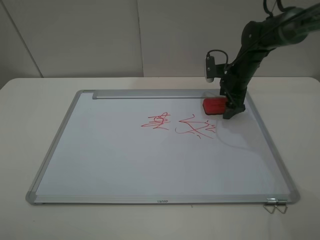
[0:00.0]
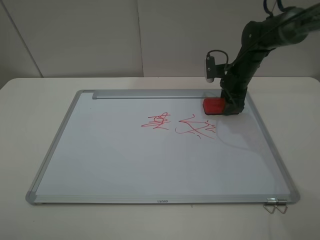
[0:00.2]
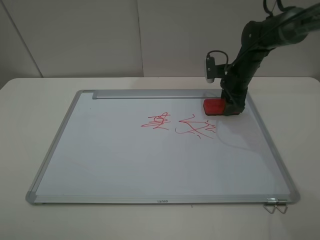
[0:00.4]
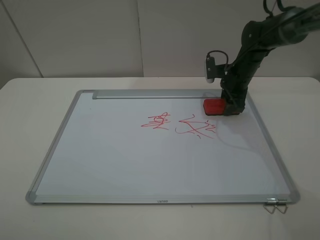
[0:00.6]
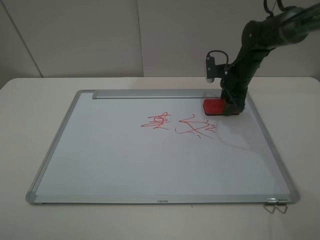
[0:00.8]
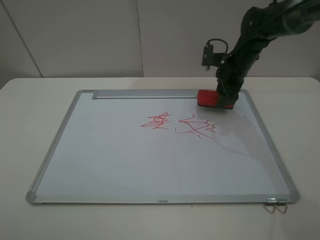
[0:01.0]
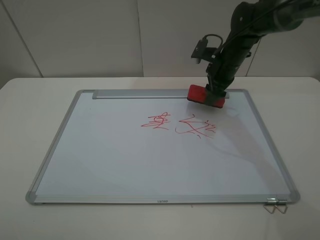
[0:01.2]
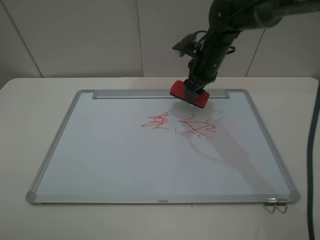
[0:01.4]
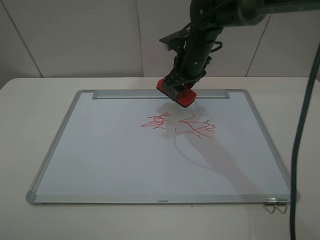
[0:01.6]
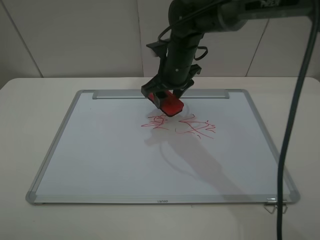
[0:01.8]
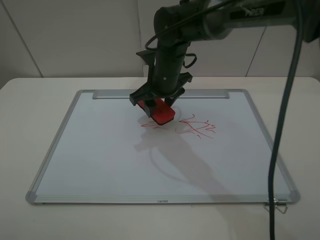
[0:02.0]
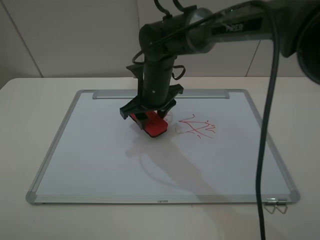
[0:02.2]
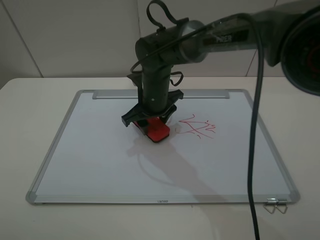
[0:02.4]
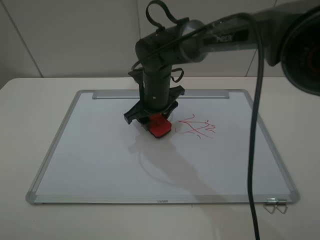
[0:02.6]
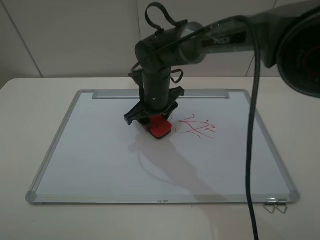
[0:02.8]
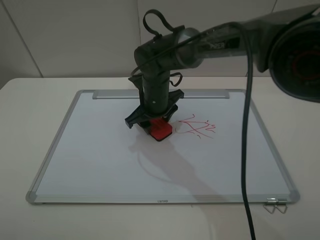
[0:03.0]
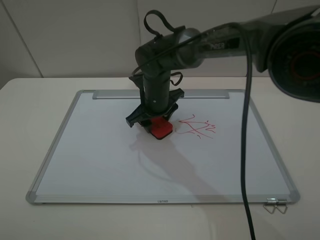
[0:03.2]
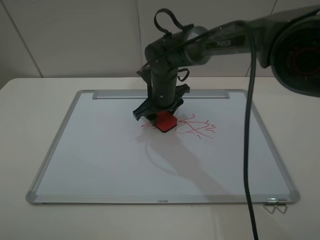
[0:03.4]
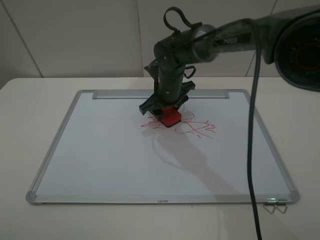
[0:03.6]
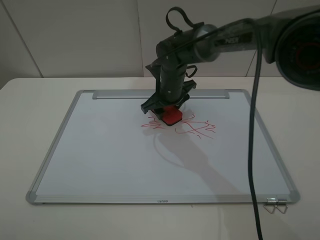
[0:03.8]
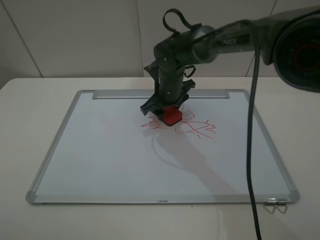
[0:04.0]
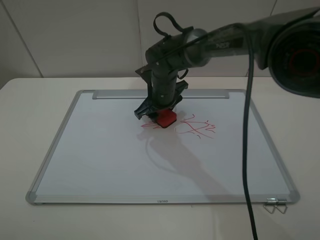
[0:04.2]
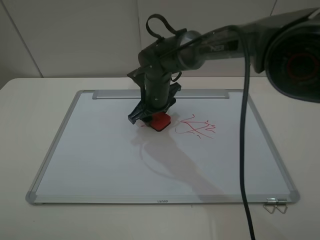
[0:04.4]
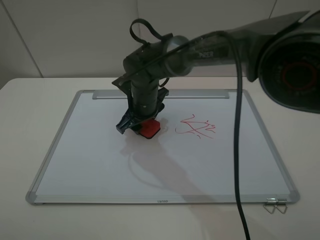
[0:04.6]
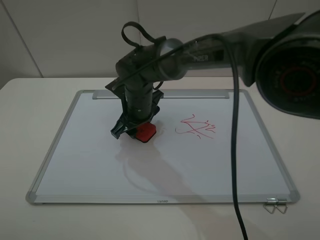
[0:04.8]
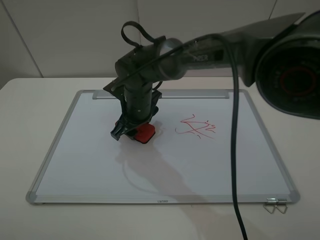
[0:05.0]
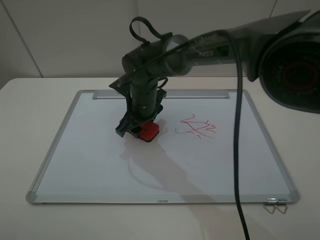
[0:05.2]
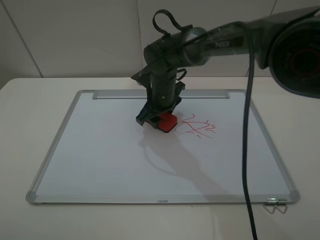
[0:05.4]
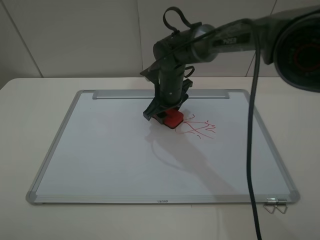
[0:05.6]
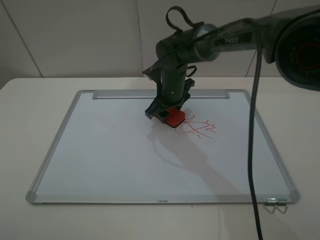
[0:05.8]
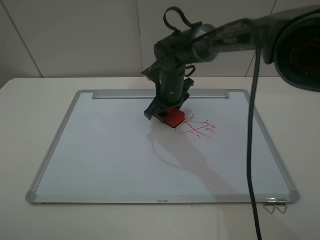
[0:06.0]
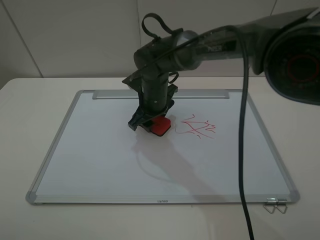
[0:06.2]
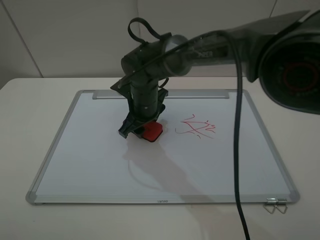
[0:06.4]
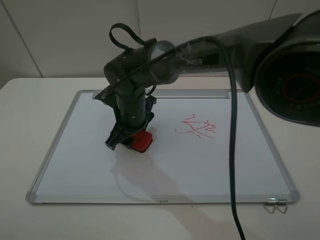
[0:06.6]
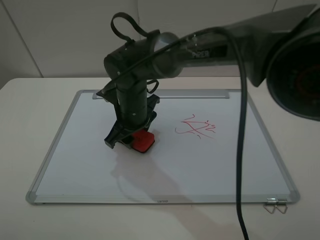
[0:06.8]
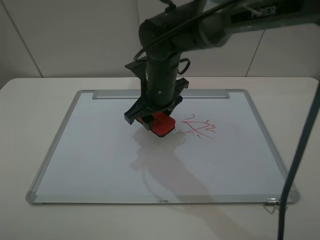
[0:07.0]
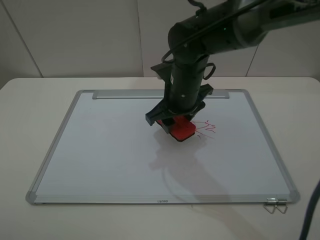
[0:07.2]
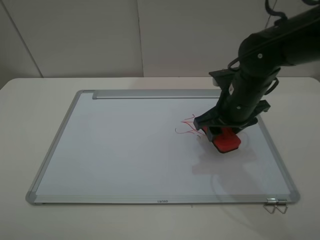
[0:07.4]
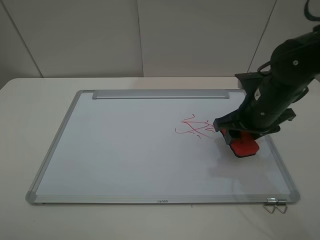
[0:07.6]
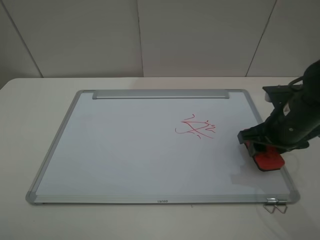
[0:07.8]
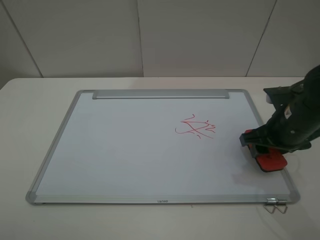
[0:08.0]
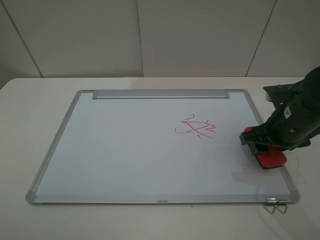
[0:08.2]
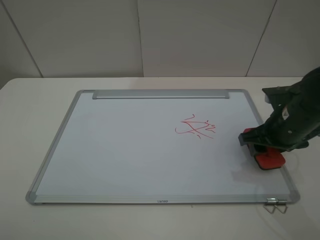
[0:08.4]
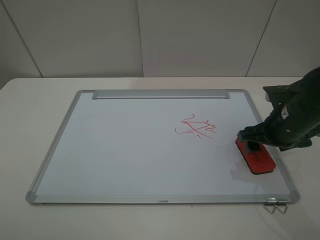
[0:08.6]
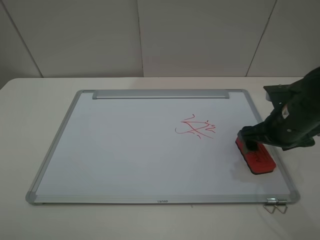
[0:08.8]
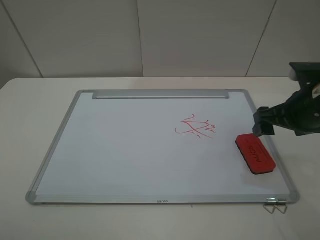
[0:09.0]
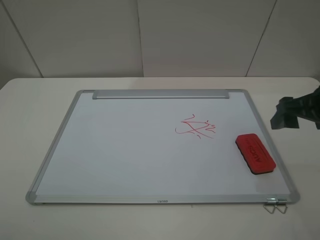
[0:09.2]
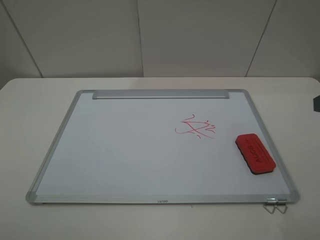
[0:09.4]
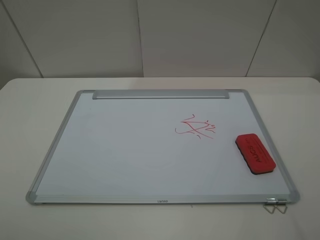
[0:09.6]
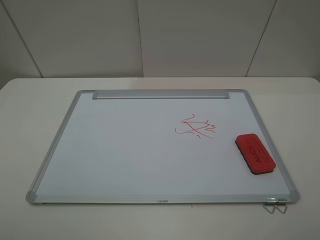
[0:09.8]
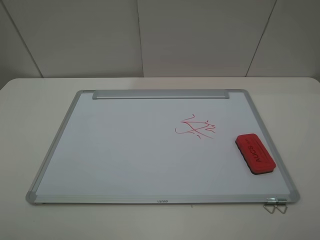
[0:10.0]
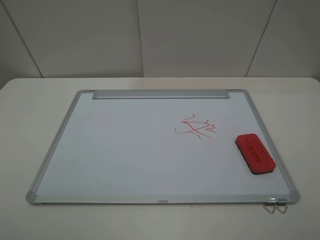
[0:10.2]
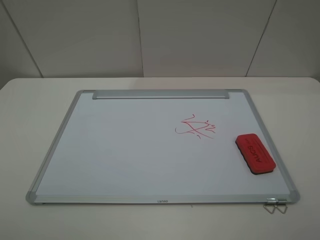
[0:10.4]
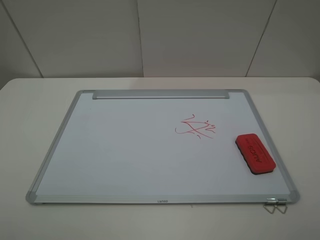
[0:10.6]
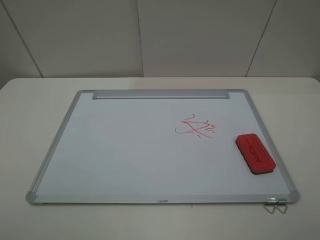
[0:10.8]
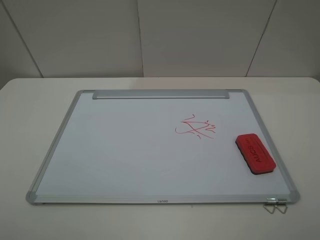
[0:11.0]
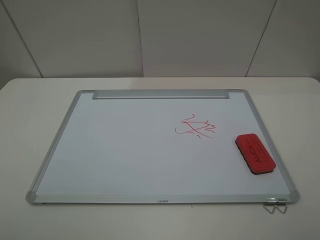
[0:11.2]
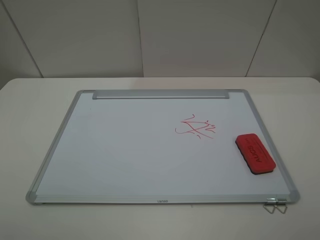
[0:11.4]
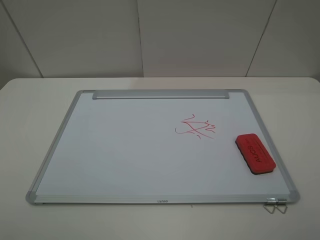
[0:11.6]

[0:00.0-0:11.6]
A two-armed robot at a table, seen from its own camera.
Step, 0:00.6 to 0:06.8: Grasp the eraser and wipe the blackboard with the right gripper.
Step, 0:07.0 to 0:08.8: Place the eraser with the right gripper.
0:00.0 to 0:01.4: The right gripper is displaced to the left and upward by about 10 cm, and closes.
0:01.4 to 0:02.8: The right gripper goes roughly 15 cm to the left and backward.
0:02.8 to 0:04.4: There are only small adjustments of the grippers.
0:04.4 to 0:05.8: The right gripper changes place by roughly 5 cm.
0:05.8 to 0:07.2: The right gripper moves backward and upward, approximately 10 cm, and travels to the left and back again, some 10 cm each way.
0:07.2 to 0:08.8: The right gripper is displaced to the right and backward by some 20 cm, and opens up.
0:08.8 to 0:10.2: The right gripper shifts some 30 cm backward and upward.
